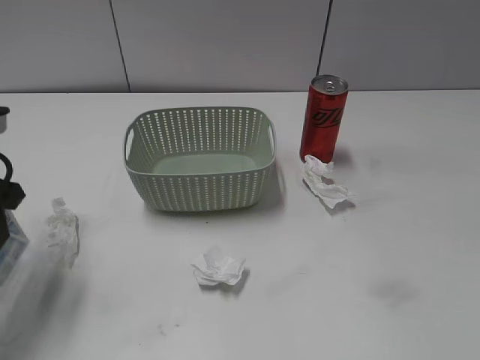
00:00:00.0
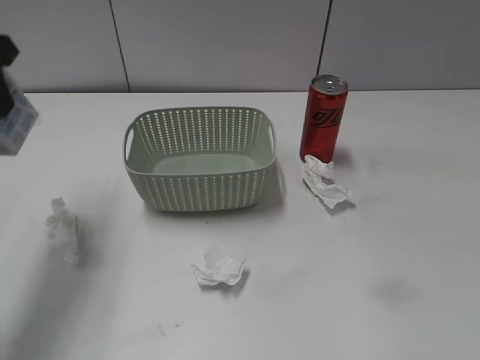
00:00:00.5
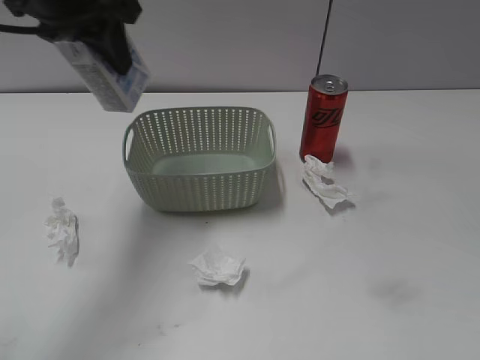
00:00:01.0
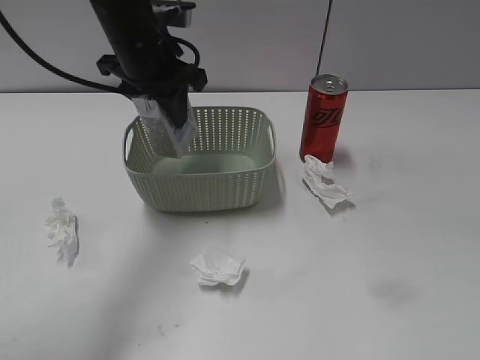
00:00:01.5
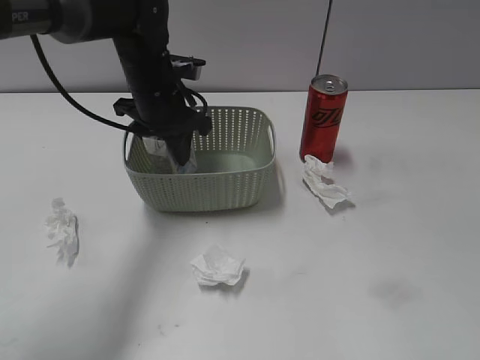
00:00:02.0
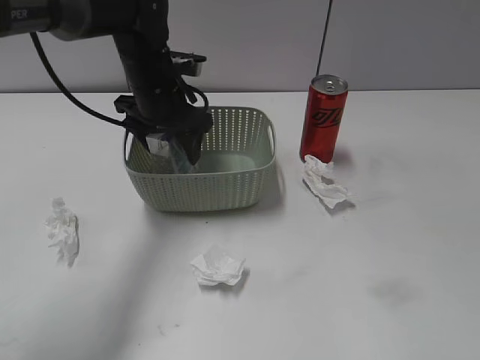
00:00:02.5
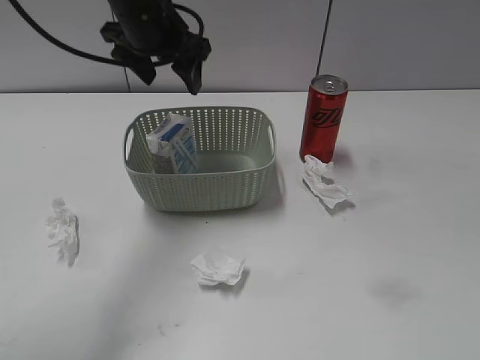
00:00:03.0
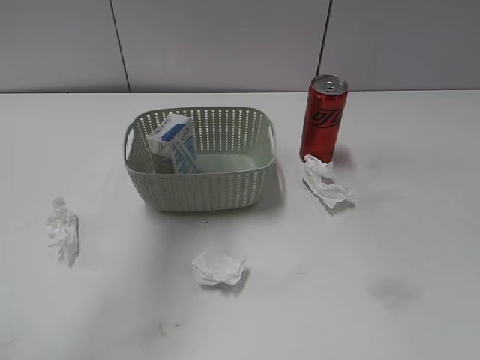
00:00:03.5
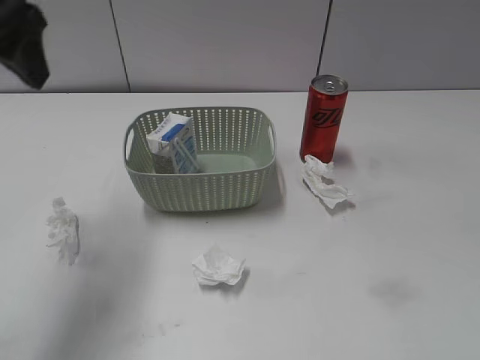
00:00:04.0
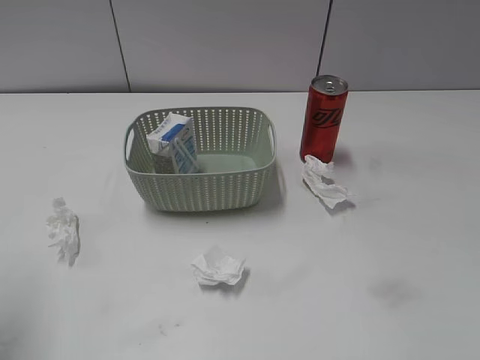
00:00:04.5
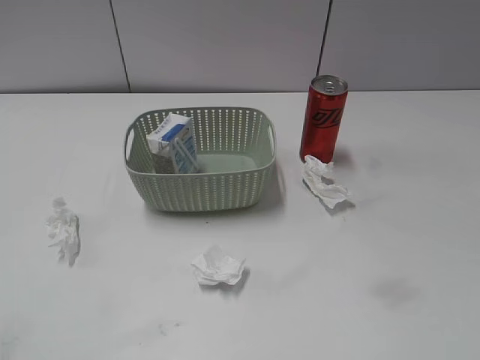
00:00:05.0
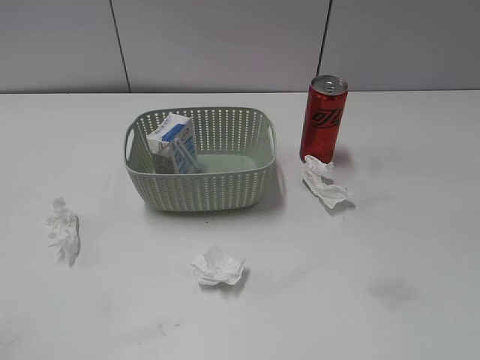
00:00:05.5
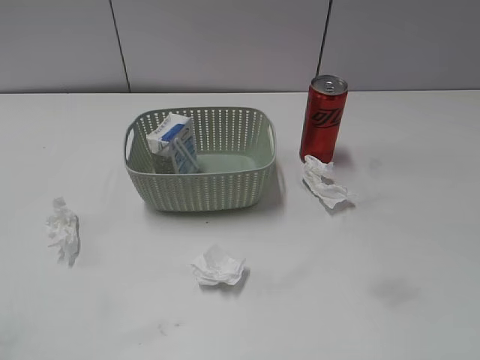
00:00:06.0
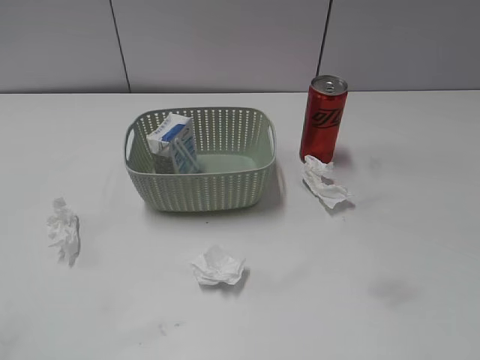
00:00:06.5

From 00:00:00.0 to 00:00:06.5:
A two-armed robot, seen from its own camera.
Step, from 00:00:00.0 to 00:00:03.0: Place the milk in the basket with left gripper.
From 00:00:00.0 to 00:00:02.0: The left gripper travels to the right and forward by approximately 25 cm.
From 00:00:02.0 to 00:00:04.5: The left gripper goes some 35 cm backward, to the left and upward, and opens its fingers.
From 00:00:04.5 to 00:00:06.5: The left gripper shifts roughly 15 cm backward.
